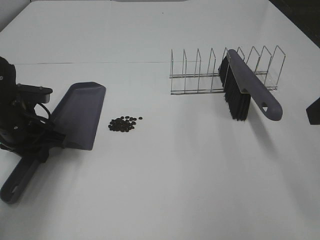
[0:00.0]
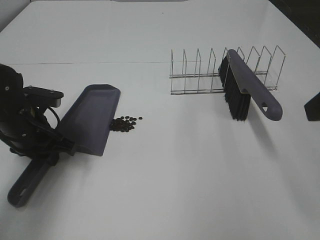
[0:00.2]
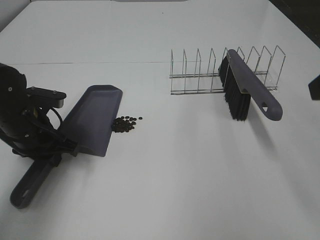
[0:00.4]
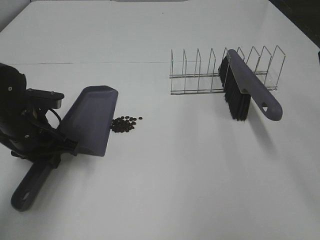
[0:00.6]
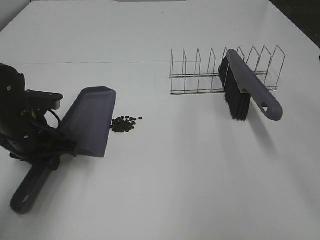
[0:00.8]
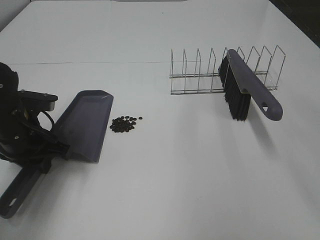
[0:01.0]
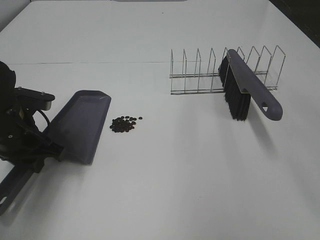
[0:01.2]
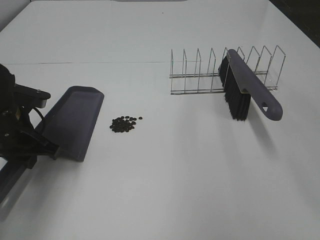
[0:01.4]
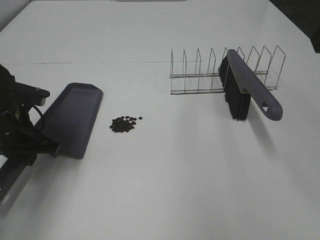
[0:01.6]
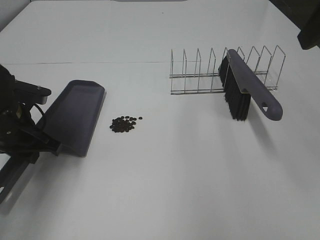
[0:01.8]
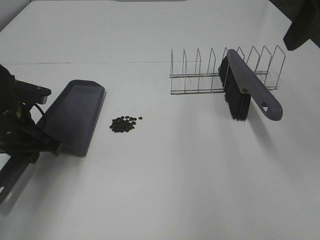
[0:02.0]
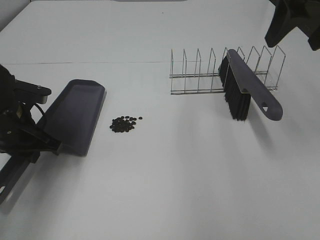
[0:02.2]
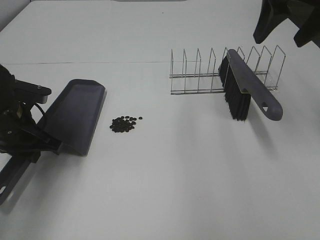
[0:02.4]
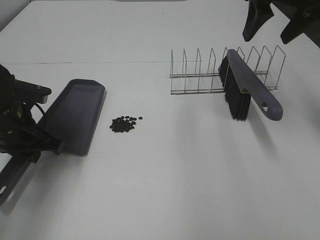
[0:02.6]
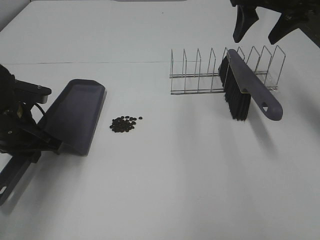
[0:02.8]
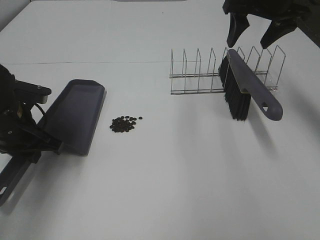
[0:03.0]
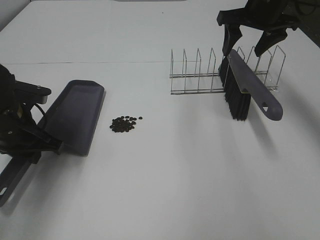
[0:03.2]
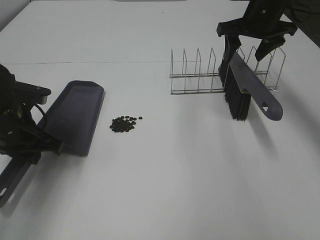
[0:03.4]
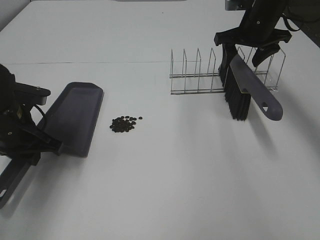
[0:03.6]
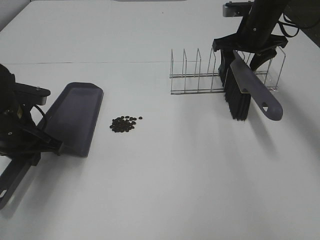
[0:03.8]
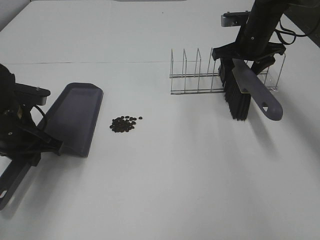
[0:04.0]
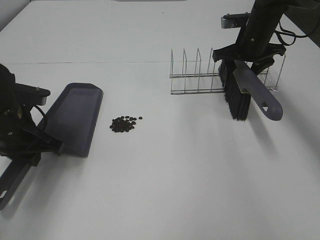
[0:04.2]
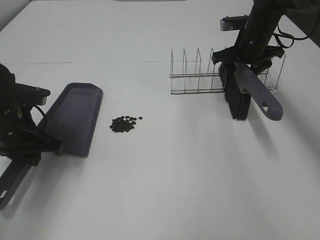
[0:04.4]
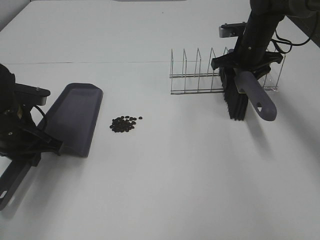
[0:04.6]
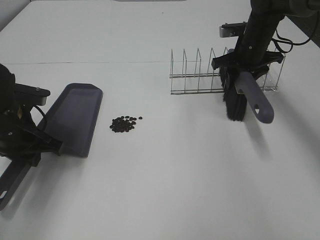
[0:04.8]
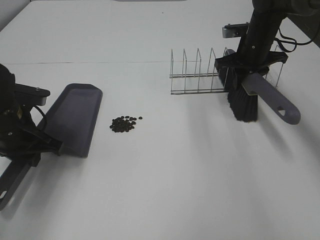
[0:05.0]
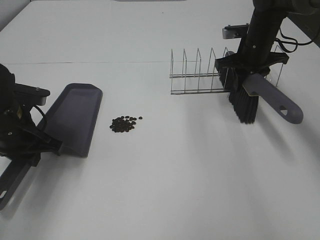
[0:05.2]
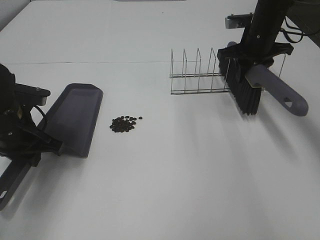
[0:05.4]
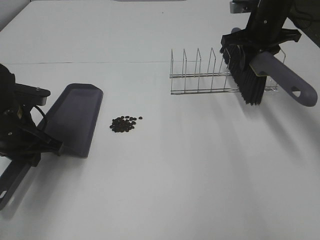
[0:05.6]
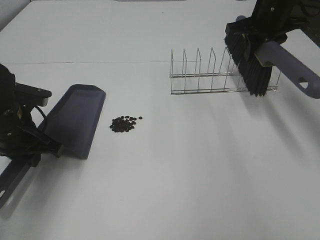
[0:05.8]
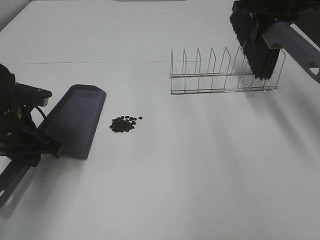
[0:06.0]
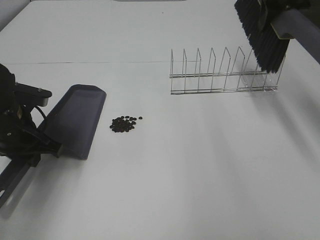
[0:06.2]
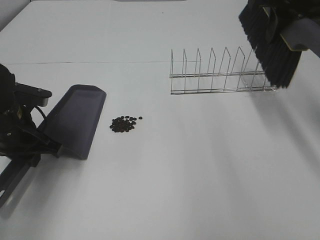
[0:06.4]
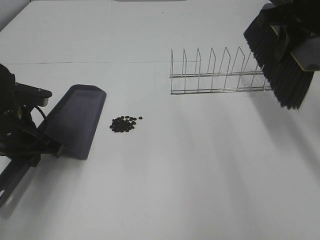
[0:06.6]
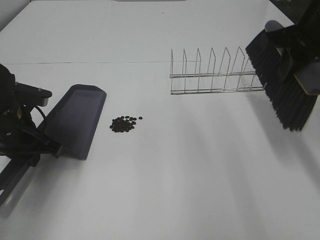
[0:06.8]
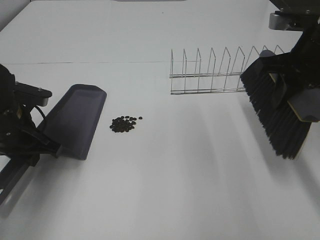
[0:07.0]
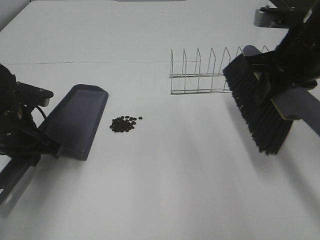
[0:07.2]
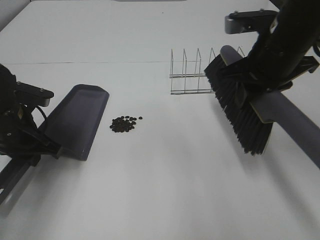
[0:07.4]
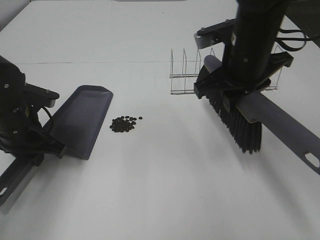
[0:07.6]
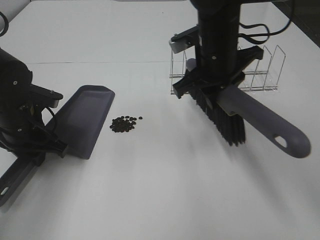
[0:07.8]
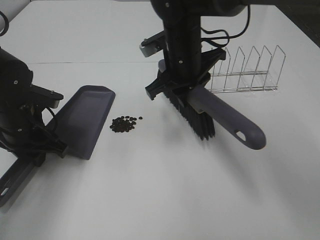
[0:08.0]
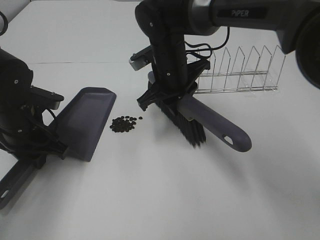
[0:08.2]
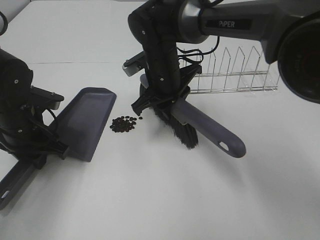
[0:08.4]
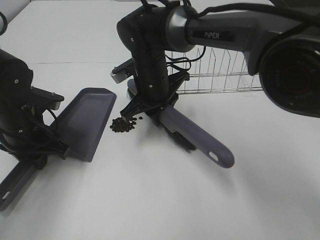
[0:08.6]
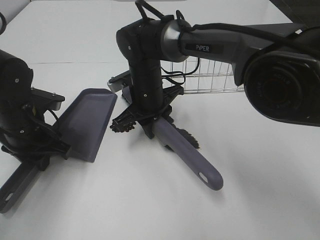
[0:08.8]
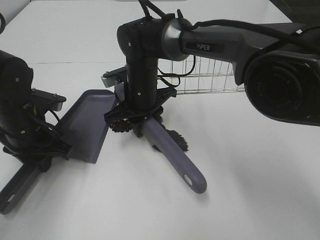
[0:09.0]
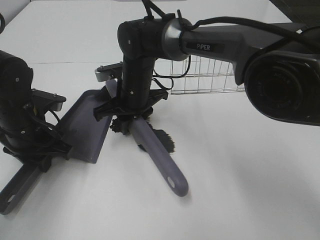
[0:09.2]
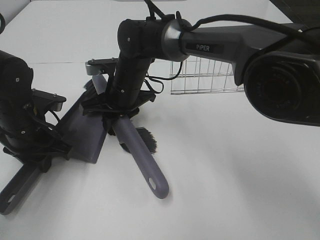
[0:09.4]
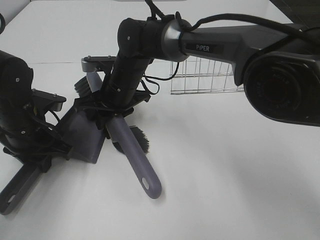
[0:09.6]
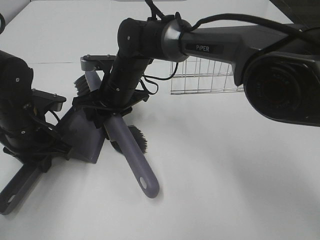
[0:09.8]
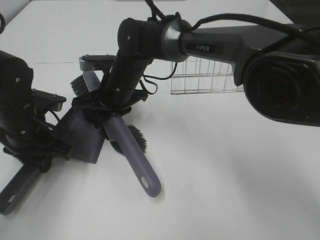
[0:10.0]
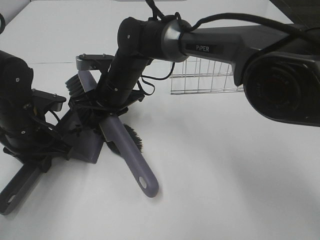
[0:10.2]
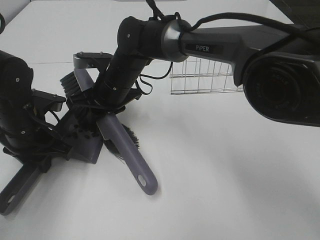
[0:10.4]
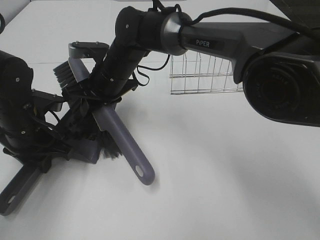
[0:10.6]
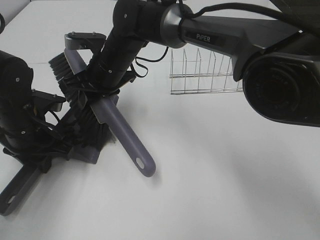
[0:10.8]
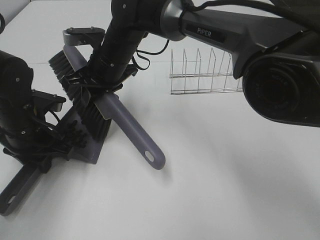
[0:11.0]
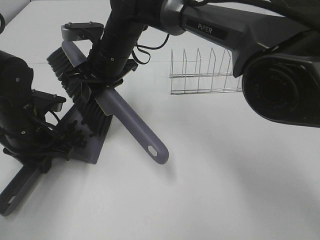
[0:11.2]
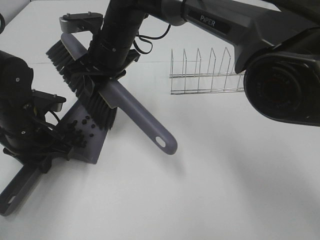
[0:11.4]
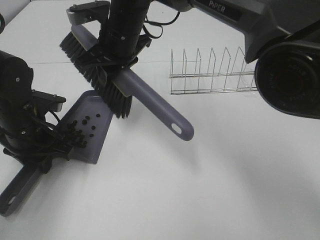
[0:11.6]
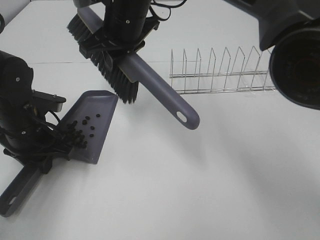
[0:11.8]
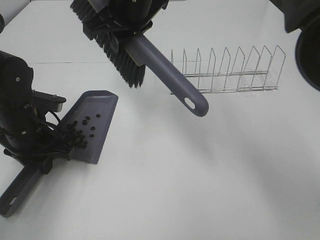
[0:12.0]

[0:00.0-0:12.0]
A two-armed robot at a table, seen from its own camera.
Task of the whole recording: Sweep Coffee Bean.
Step, 0:00.2 to 0:05.0: Right hand:grab the broom.
Step, 0:05.2 to 0:11.4: Right hand:sweep the coffee beans into the dustpan.
0:01.6 to 0:03.0: The right gripper travels forward and downward by some 25 cm.
0:03.0 to 0:04.4: The right gripper travels downward by some 10 cm.
0:04.4 to 0:06.0: The right gripper moves upward, approximately 15 cm, and closes up.
0:06.0 to 0:07.6: The right gripper moves backward, to the left and downward, some 15 cm.
0:07.6 to 0:09.0: The right gripper travels to the left, downward and forward by approximately 20 cm.
0:10.4 to 0:12.0: The right gripper moves upward, roughly 15 cm.

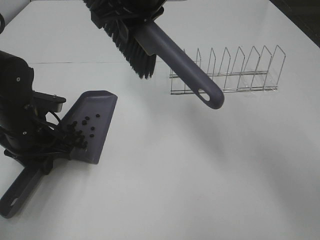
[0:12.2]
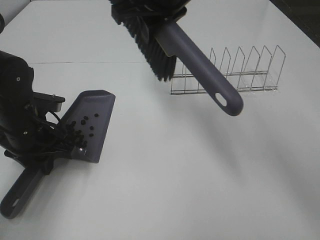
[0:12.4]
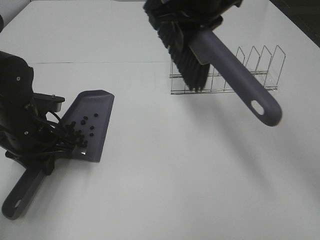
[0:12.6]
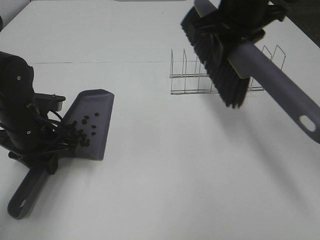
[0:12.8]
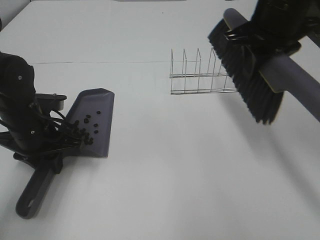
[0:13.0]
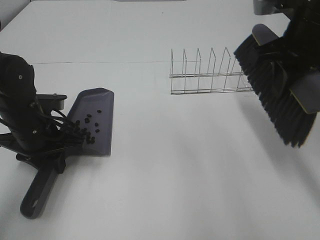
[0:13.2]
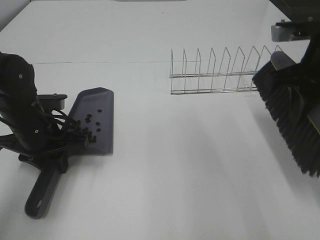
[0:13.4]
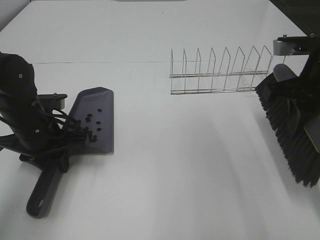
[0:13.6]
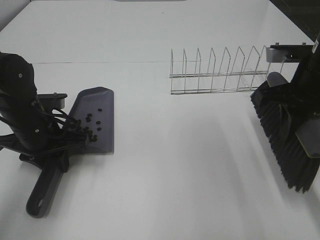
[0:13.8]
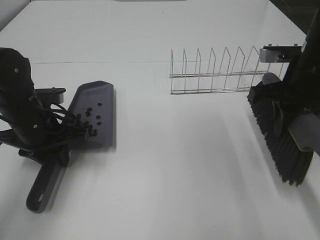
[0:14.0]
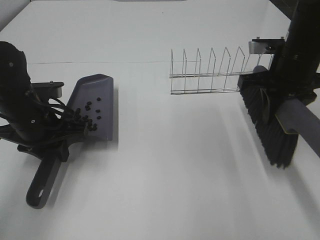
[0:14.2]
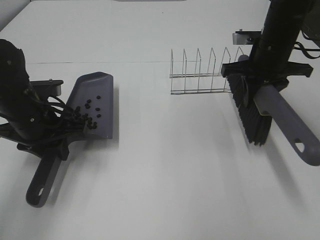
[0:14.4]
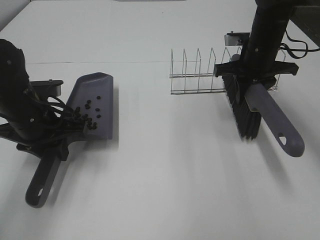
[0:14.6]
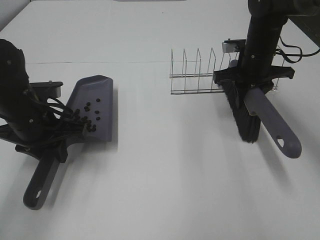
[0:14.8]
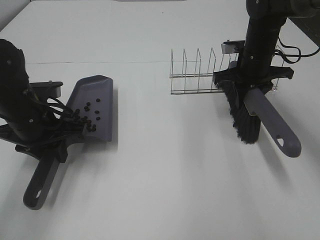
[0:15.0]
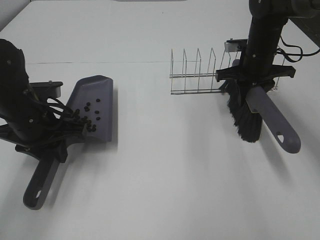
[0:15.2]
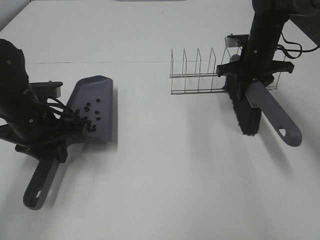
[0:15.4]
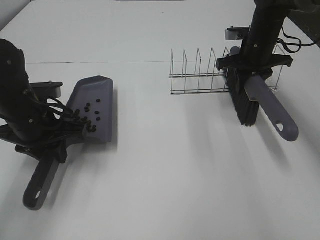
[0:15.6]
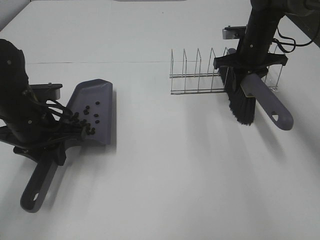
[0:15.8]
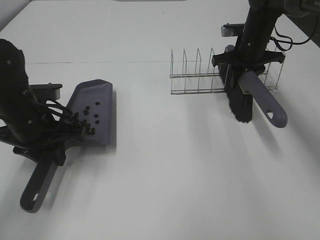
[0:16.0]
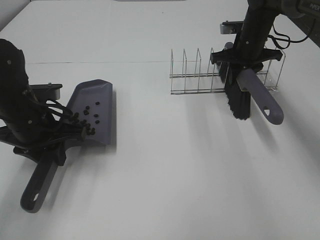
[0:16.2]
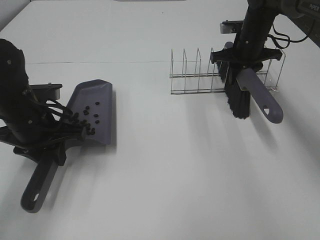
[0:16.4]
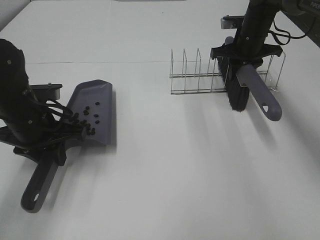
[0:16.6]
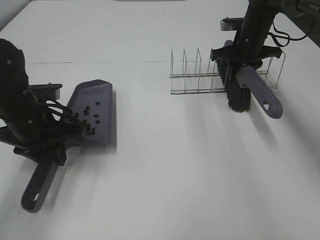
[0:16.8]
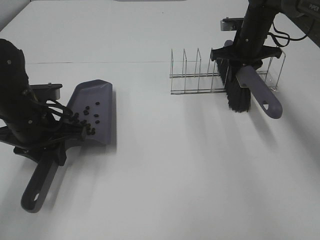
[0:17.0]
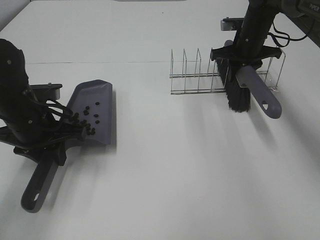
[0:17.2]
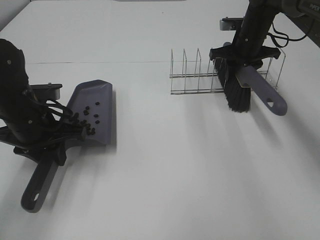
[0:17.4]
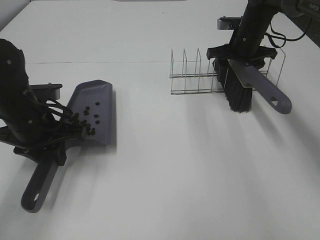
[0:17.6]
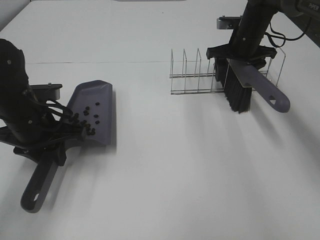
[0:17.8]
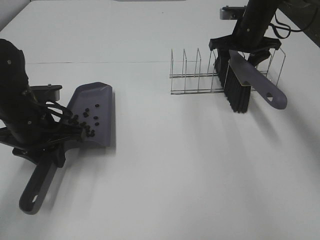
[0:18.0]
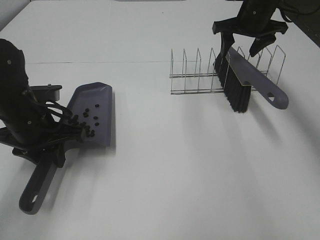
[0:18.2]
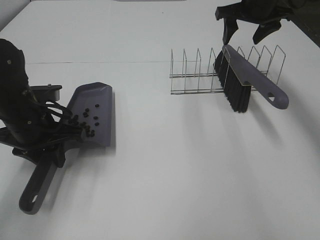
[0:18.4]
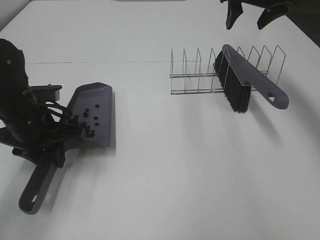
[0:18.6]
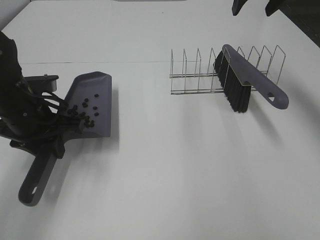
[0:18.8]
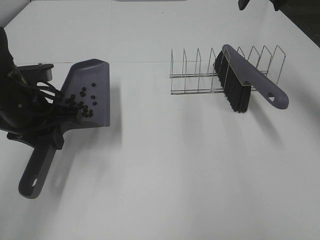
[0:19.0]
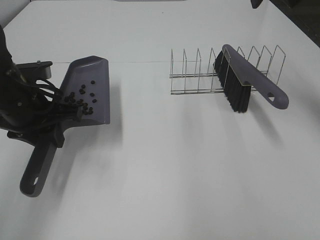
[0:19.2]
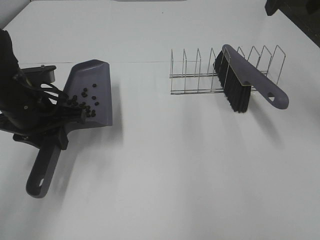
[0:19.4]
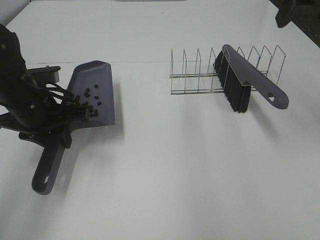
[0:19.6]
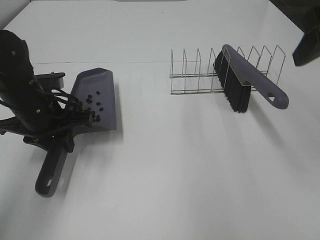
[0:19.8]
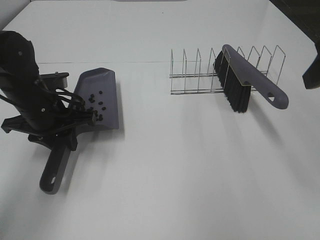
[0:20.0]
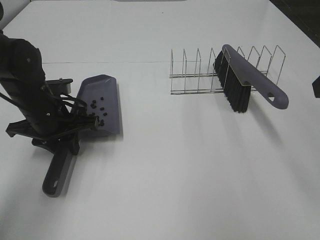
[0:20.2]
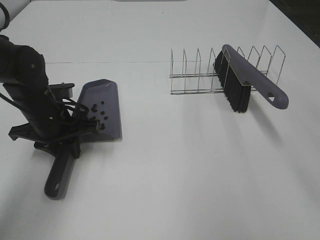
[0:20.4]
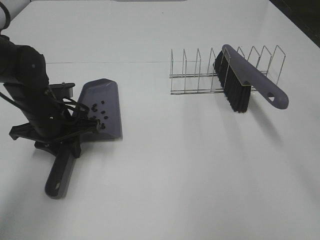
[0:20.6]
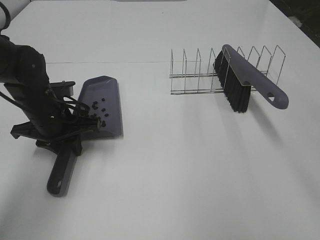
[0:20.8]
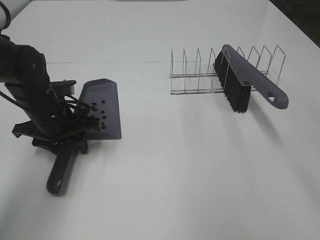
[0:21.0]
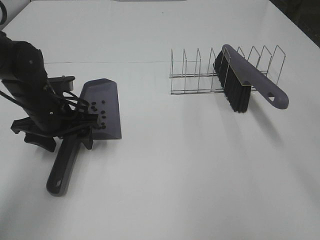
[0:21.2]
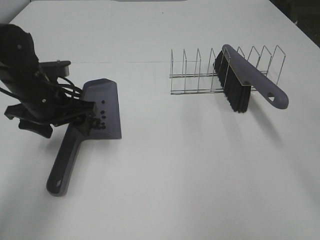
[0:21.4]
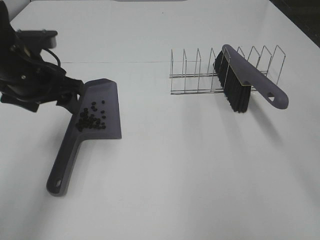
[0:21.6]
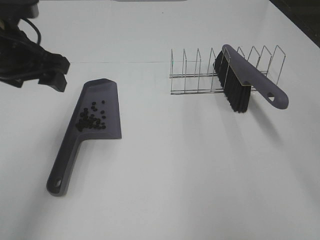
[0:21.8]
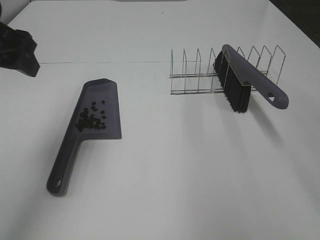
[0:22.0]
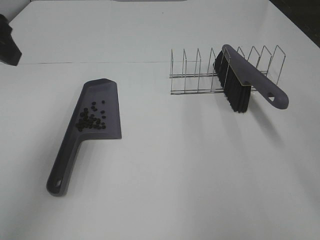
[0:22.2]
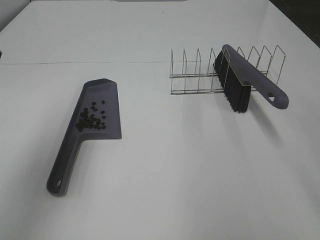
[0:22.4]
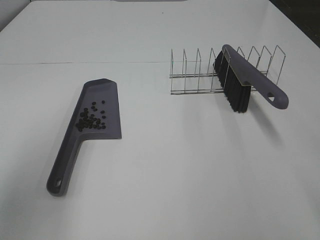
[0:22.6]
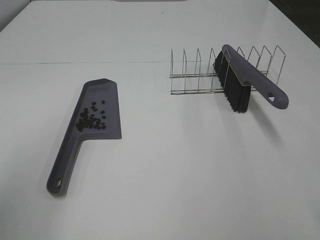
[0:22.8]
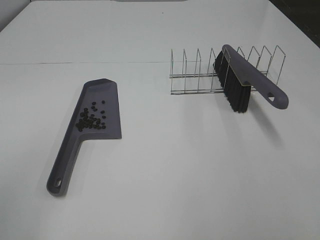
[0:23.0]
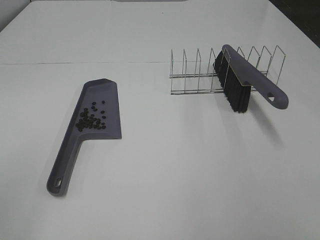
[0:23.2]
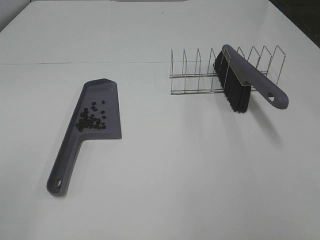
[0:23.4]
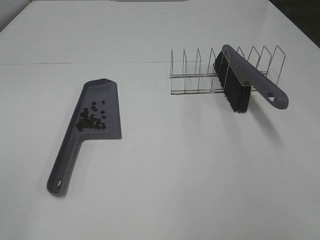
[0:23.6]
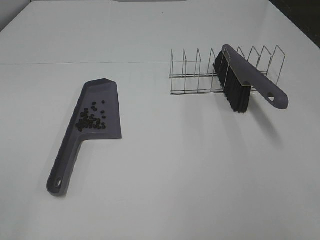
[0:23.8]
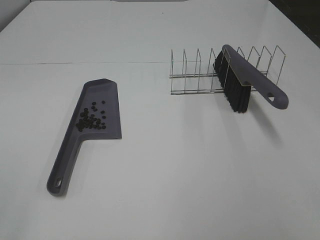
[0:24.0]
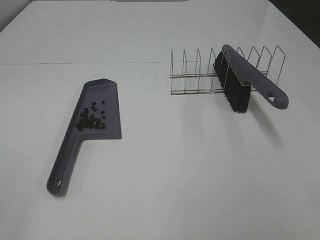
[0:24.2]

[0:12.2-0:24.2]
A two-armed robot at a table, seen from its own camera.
Task of the whole recording: Sweep Coffee Bean.
Step, 0:12.2 to 0:18.0: Right hand:place the broom on the rack.
Step, 0:18.2 to 0:21.4: Left hand:place the dustpan on the table.
0:12.2 to 0:13.8: The right gripper shifts roughly 25 cm to the right and backward.
0:13.8 to 0:15.2: The right gripper is displaced forward and downward by some 20 cm.
0:15.2 to 0:16.6: The right gripper is displaced forward by about 5 cm.
0:16.6 to 0:18.2: The right gripper travels upward by about 5 cm, and opens up.
0:18.2 to 0:19.8: The right gripper travels backward and upward by about 30 cm.
0:19.8 to 0:21.2: The left gripper opens. The right gripper moves backward, approximately 10 cm.
0:21.2 to 0:22.6: The left gripper travels upward and backward by approximately 30 cm.
0:22.6 to 0:24.2: The left gripper goes roughly 15 cm backward and to the left.
